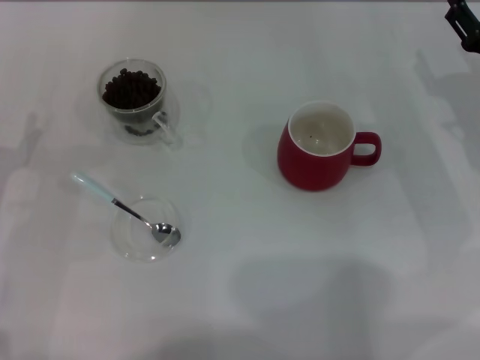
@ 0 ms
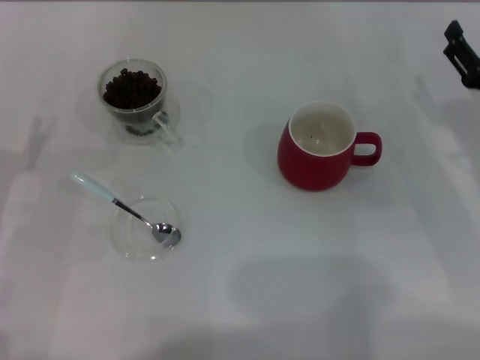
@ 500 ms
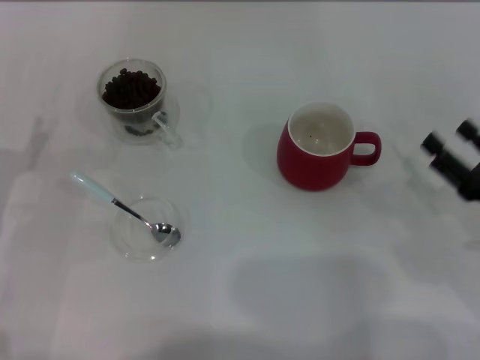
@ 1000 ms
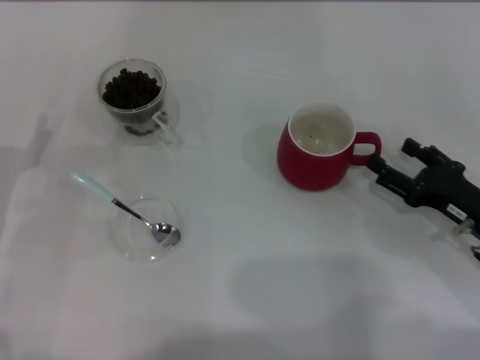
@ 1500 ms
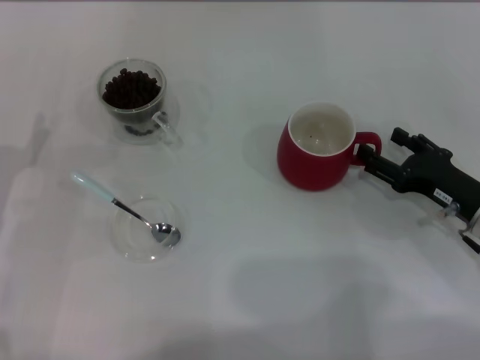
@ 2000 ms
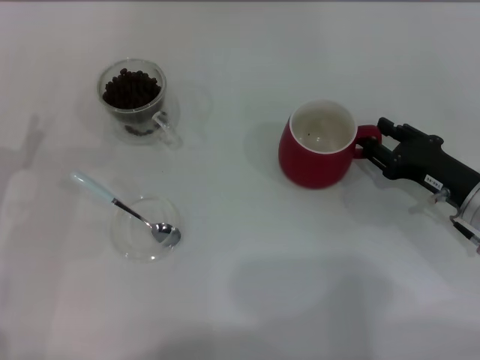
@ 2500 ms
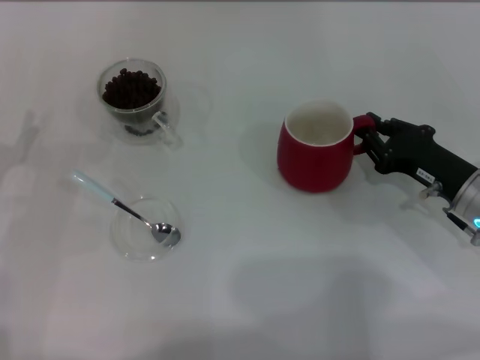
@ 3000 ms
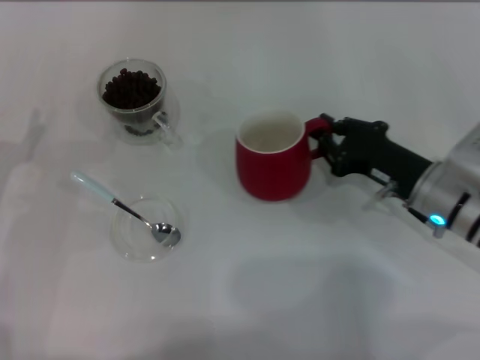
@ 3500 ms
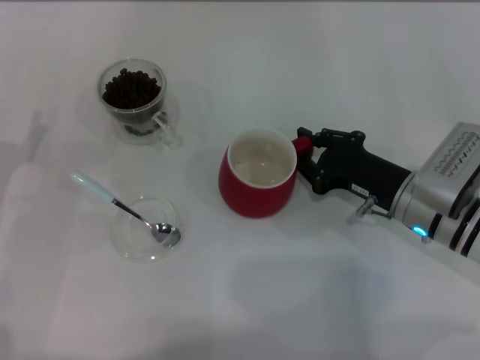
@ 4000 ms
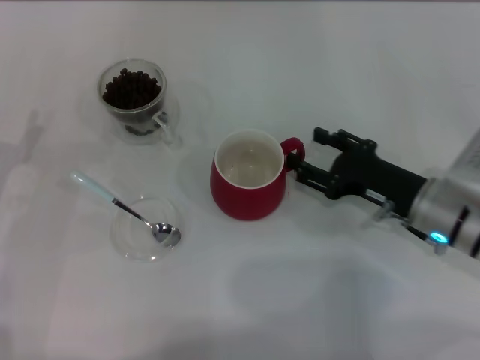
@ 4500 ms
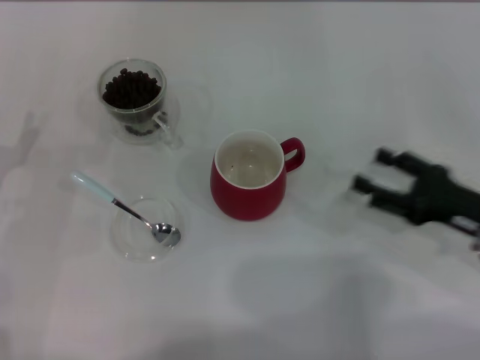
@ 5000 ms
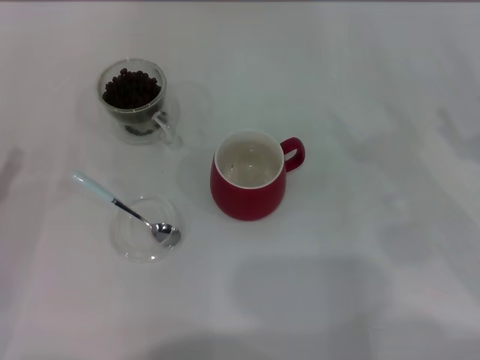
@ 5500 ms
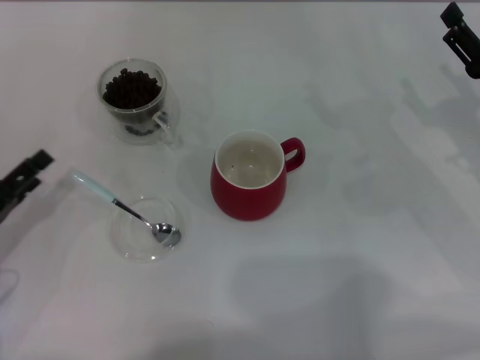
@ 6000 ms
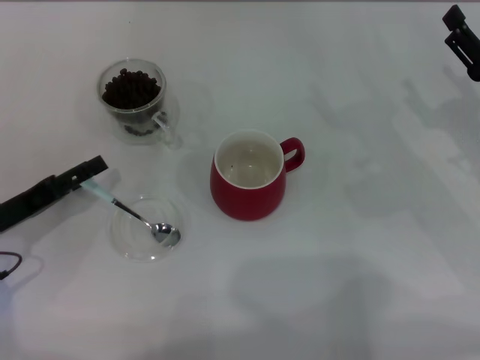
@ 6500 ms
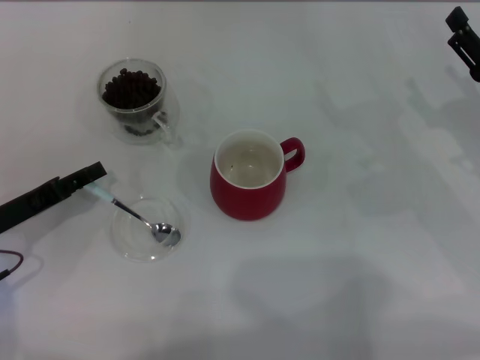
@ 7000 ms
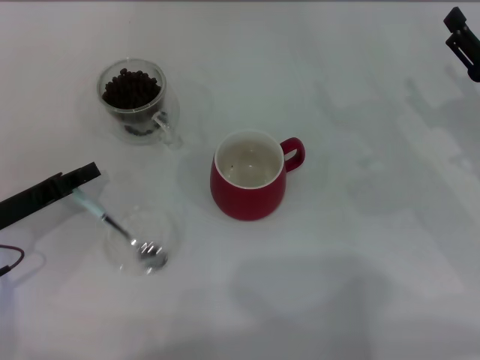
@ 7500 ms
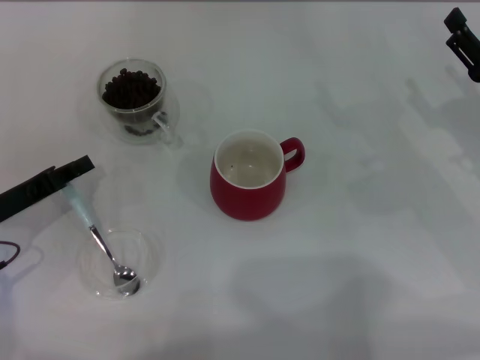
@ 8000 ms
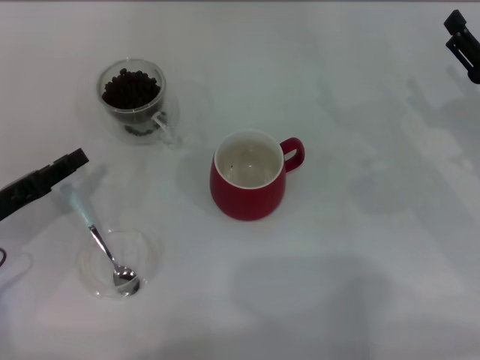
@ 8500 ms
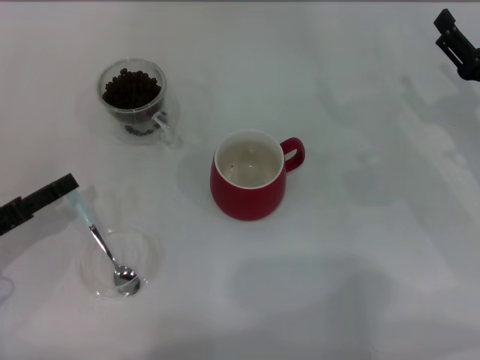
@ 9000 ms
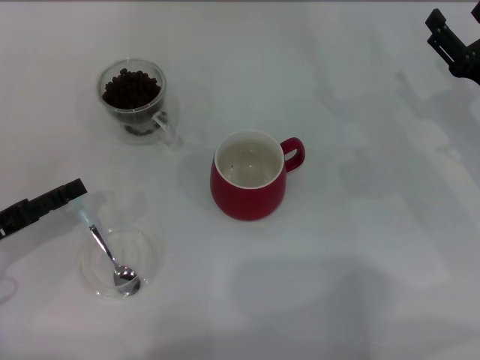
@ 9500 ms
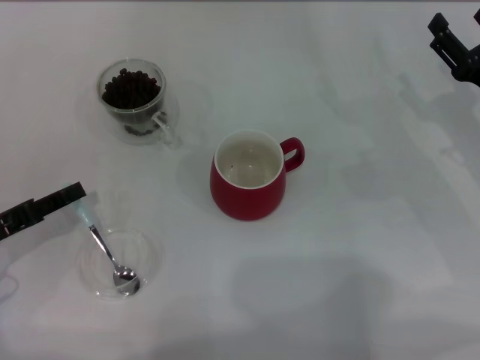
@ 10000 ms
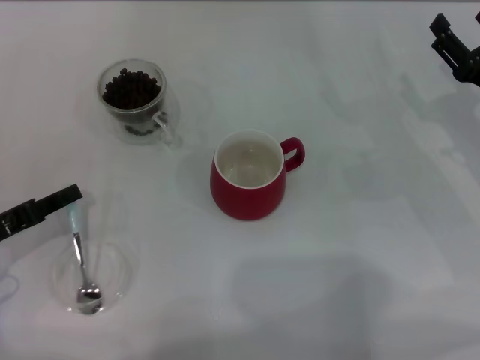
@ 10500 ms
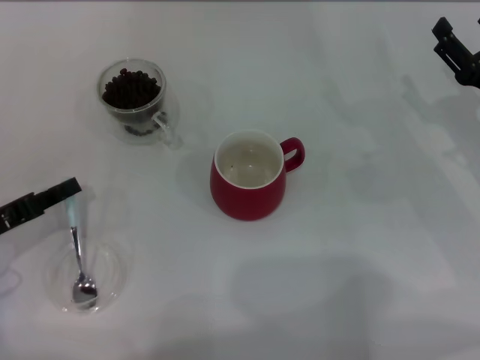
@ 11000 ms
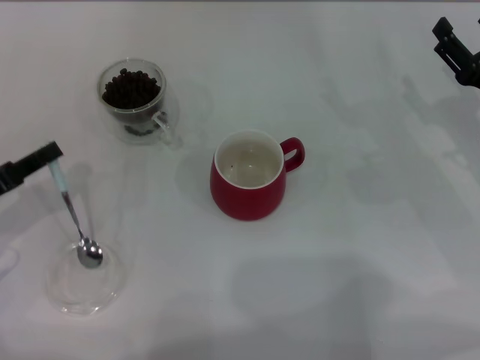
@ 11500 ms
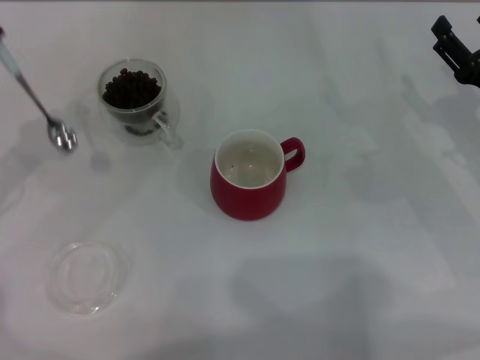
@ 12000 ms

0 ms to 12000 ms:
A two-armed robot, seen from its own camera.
Task of the whole recording: Use a blue spoon to take out the coffee beans from the glass and pour them into the red cup.
Step, 5000 ms to 11500 ms: Pick up the spoon with the right gripper.
0 ms to 2000 ms: The right gripper moves backward and downward, some 10 cm.
2000 ms to 4000 ms: The right gripper travels to the left by roughly 10 cm, and closes up.
4000 ms to 6000 ms: The right gripper heads to the right, covering about 10 cm, and opens.
6000 ms to 8000 ms: The left gripper ends up roughly 5 cm from where it was, and closes its fingers.
8000 ms to 10000 ms: The left gripper opens up.
10000 ms to 12000 ms: The left gripper travels upward by some 10 cm, and closes up.

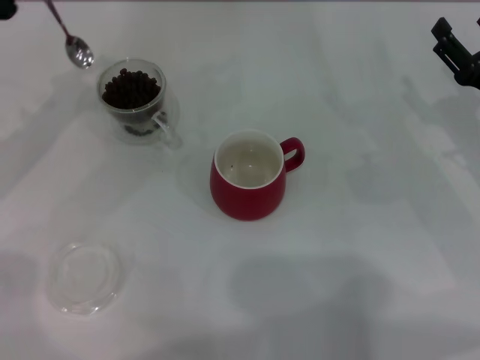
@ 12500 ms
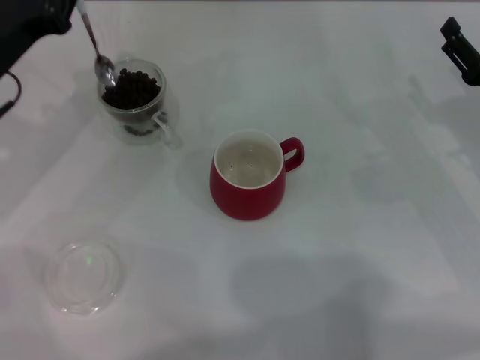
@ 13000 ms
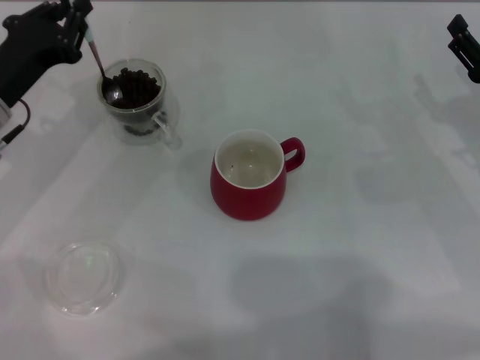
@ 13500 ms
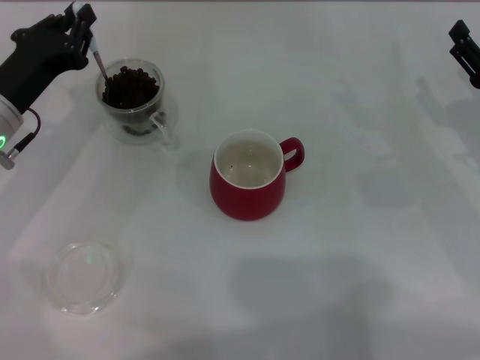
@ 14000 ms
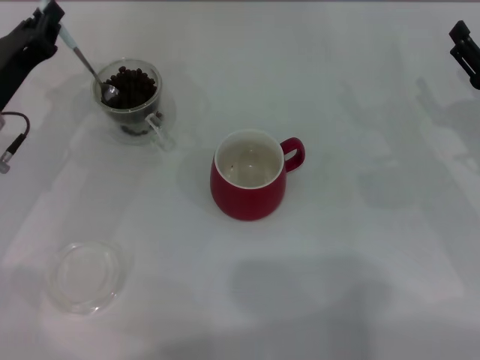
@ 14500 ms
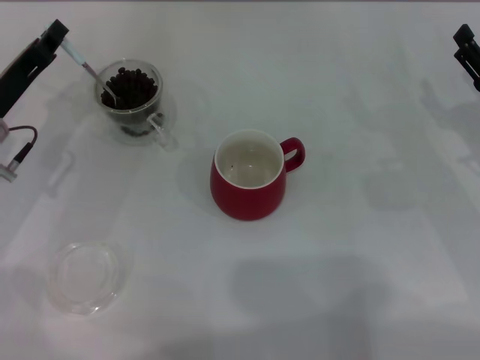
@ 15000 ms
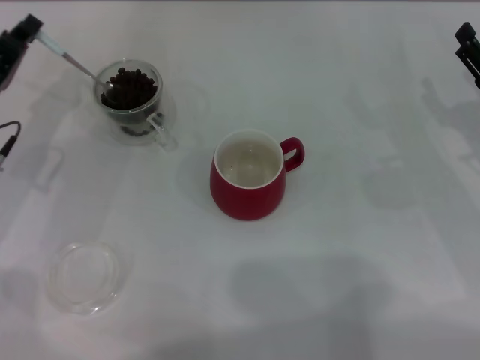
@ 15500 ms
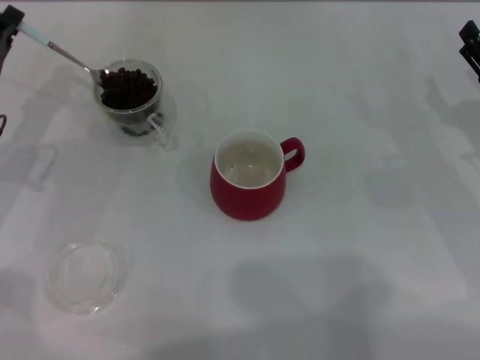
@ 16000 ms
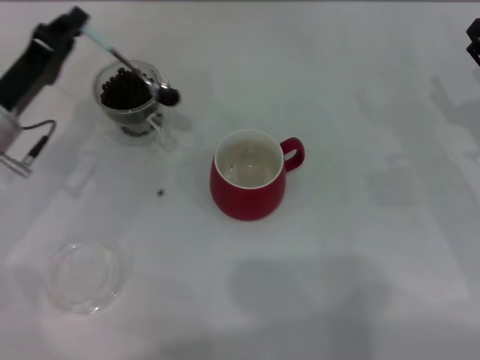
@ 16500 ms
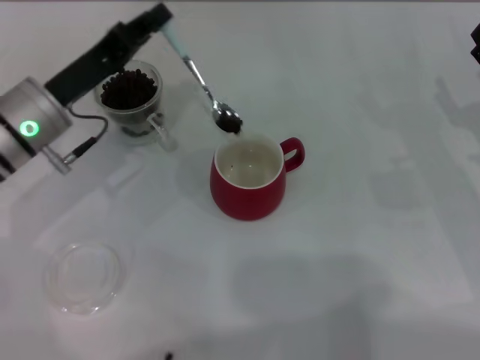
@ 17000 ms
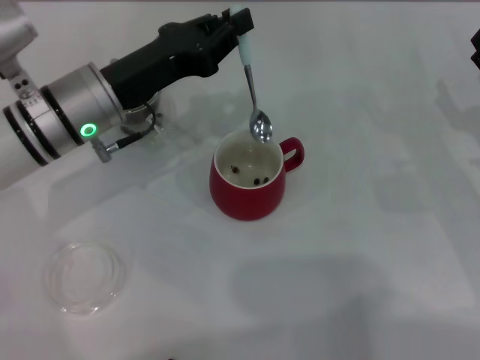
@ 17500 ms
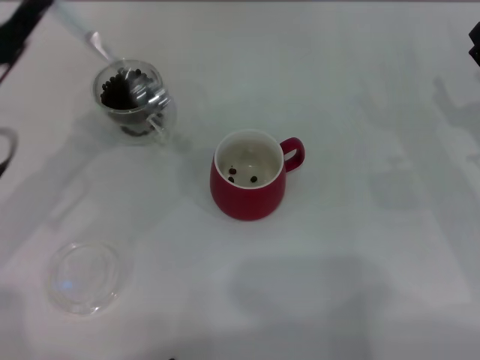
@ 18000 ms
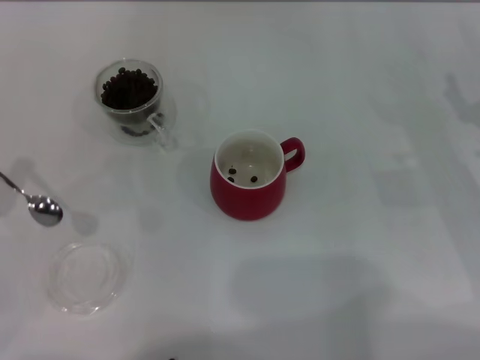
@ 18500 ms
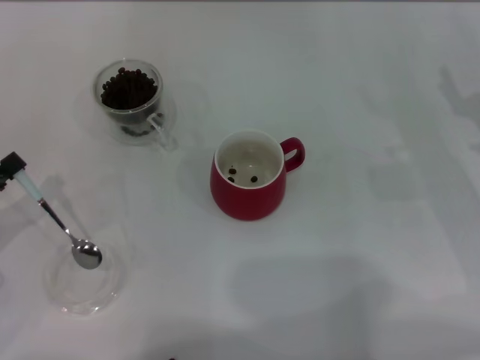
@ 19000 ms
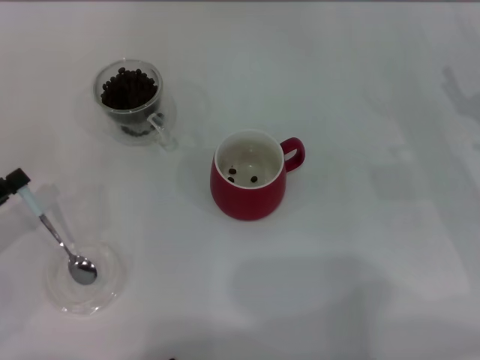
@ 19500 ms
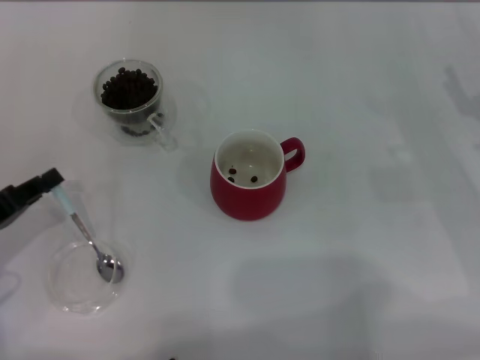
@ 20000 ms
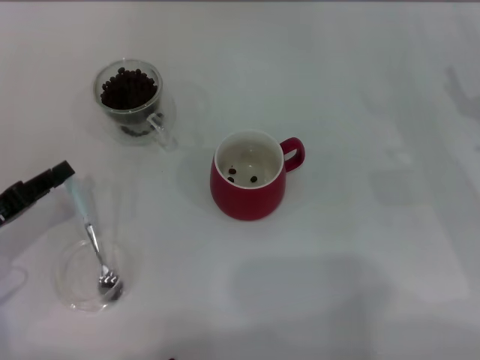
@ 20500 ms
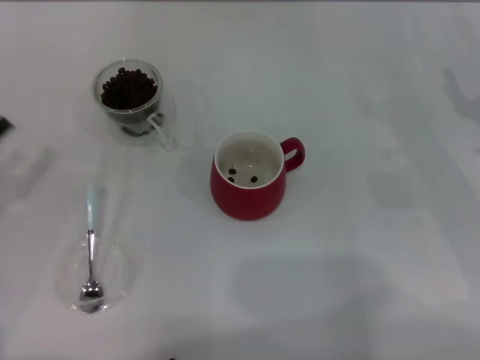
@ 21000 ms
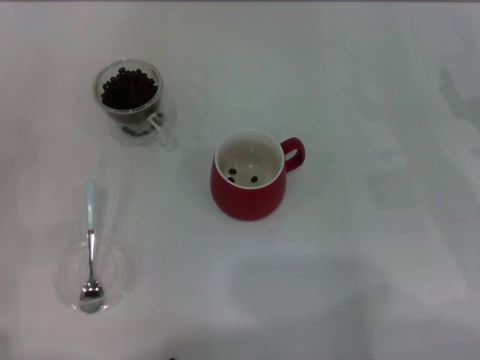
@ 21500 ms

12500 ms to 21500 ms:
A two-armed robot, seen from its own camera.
Task of the whole recording: Use a blue spoon to take out the coffee beans from the glass and pour them into the red cup.
12500 ms to 14500 ms: The left gripper goes approximately 5 cm downward.
14500 ms to 17000 ms: The left gripper heads to the right, covering approximately 5 cm.
17000 ms to 19500 ms: The left gripper heads to the left and backward, covering roughly 20 cm.
19500 ms to 21500 ms: The left gripper opens up.
